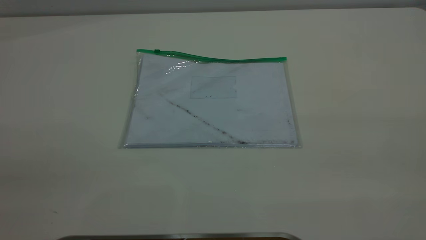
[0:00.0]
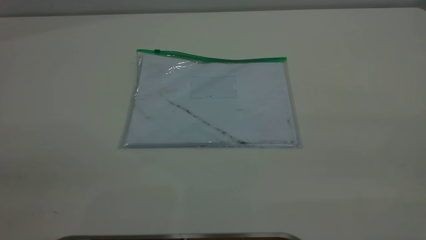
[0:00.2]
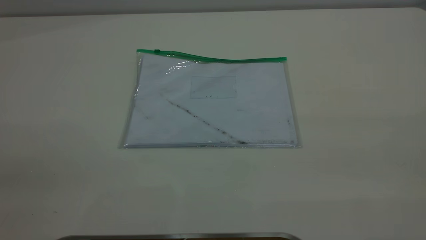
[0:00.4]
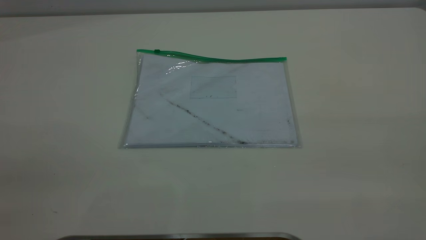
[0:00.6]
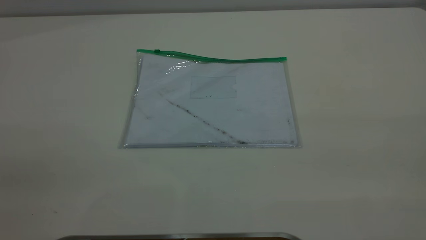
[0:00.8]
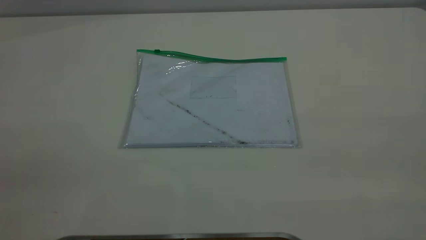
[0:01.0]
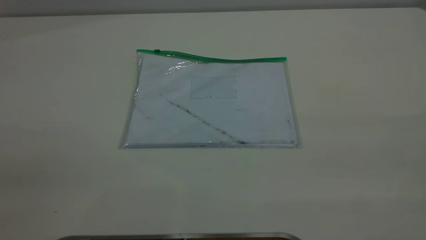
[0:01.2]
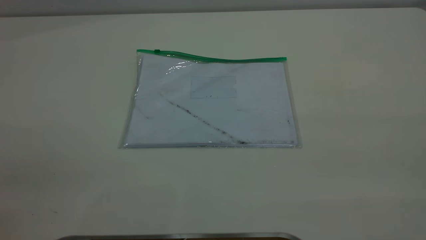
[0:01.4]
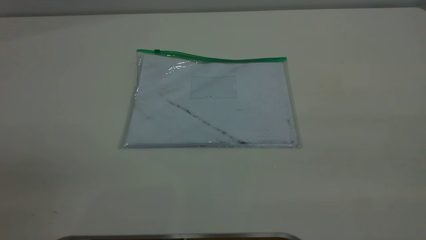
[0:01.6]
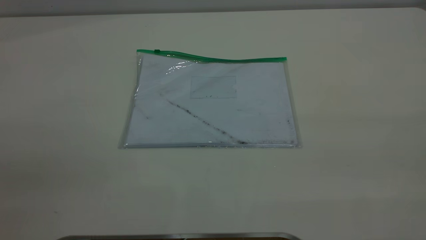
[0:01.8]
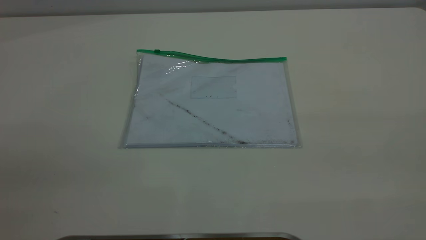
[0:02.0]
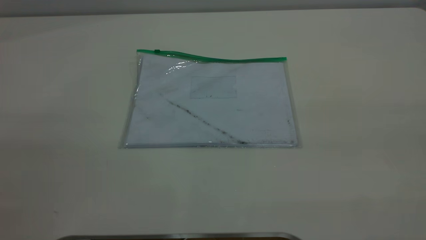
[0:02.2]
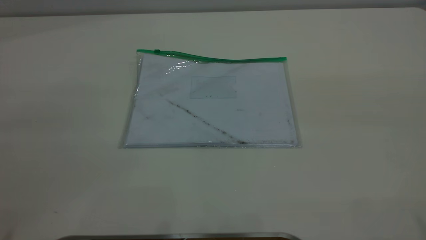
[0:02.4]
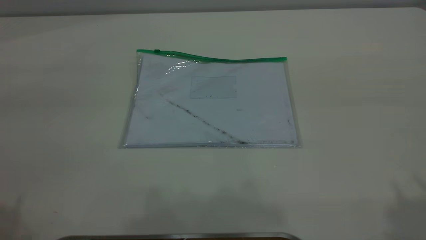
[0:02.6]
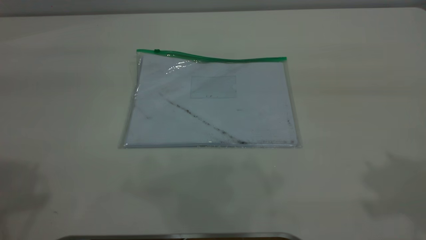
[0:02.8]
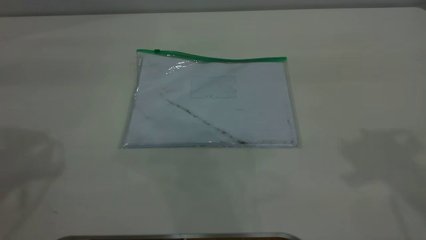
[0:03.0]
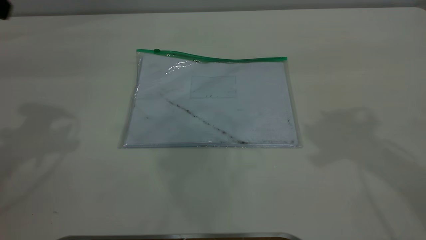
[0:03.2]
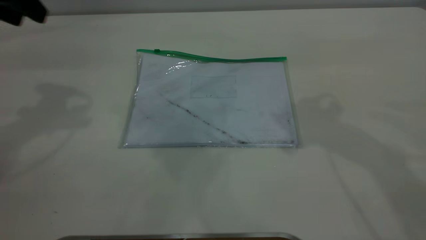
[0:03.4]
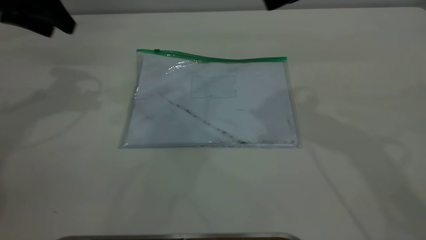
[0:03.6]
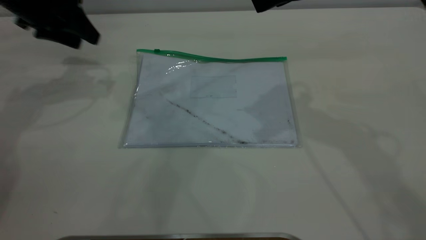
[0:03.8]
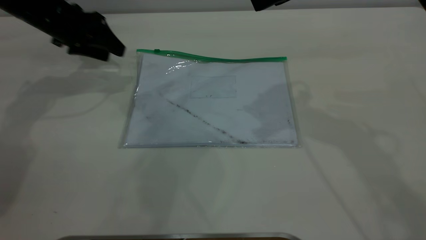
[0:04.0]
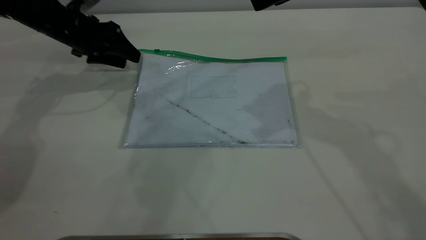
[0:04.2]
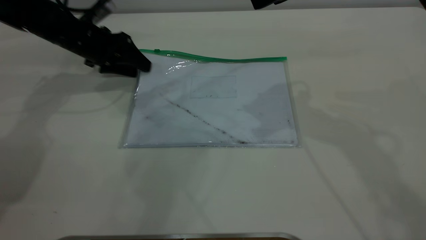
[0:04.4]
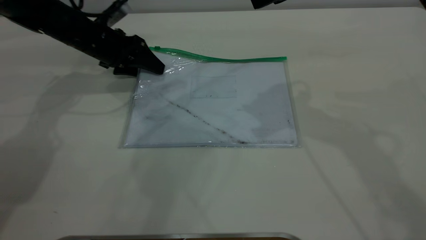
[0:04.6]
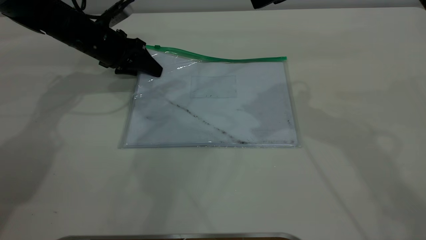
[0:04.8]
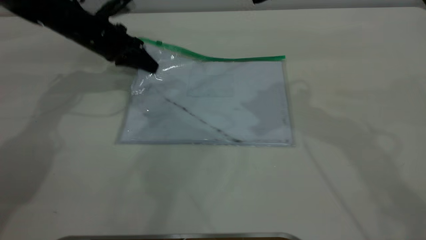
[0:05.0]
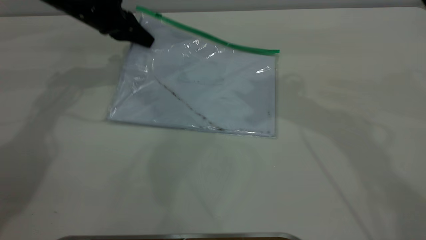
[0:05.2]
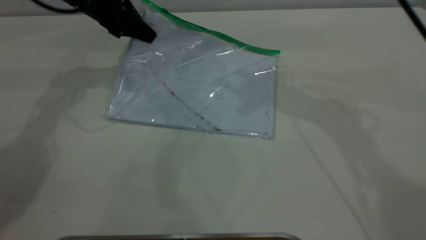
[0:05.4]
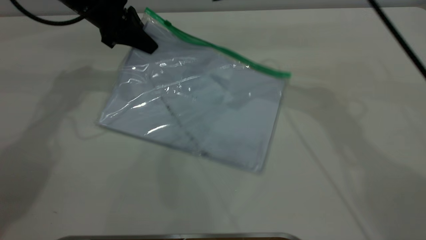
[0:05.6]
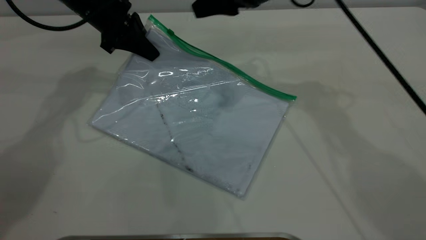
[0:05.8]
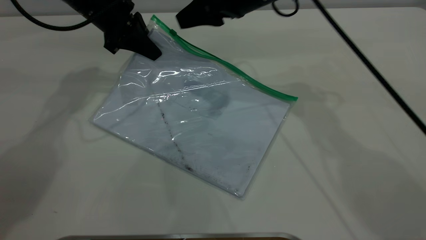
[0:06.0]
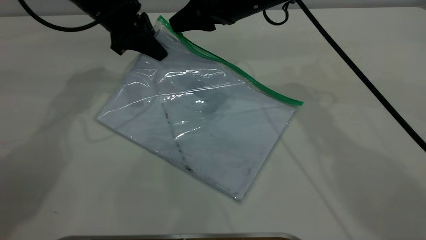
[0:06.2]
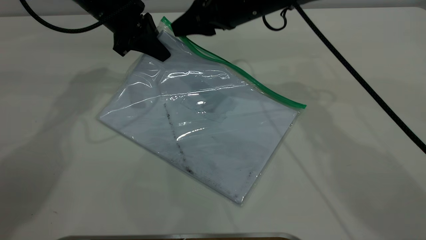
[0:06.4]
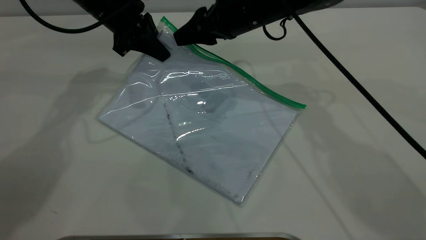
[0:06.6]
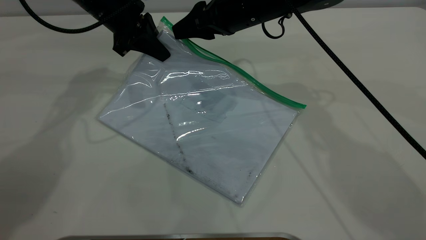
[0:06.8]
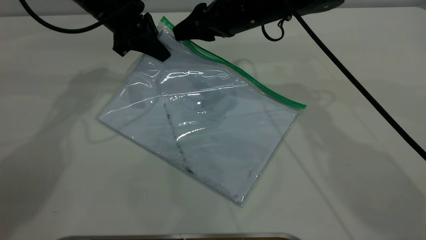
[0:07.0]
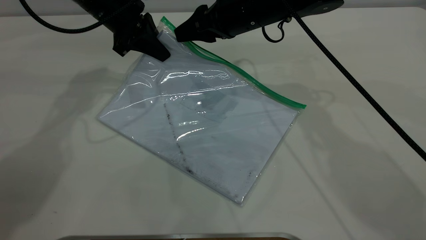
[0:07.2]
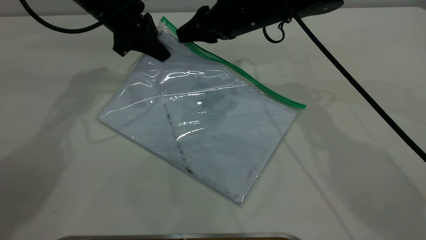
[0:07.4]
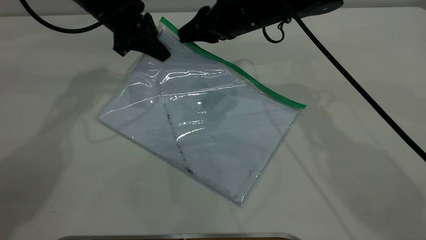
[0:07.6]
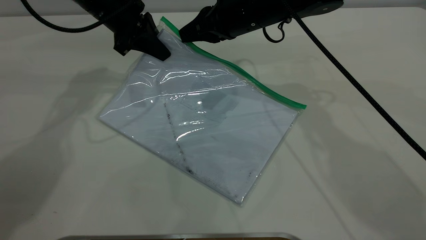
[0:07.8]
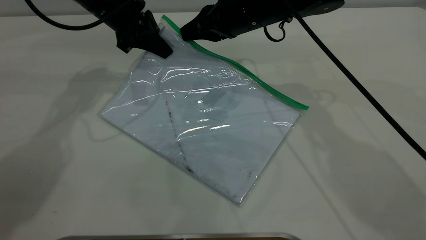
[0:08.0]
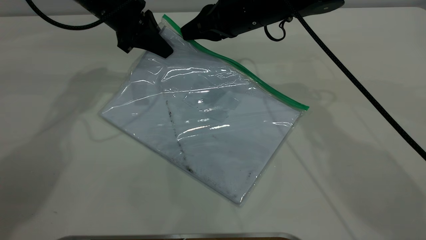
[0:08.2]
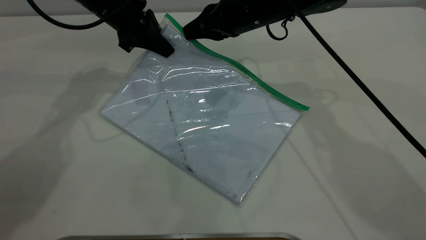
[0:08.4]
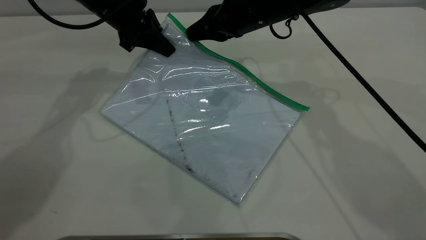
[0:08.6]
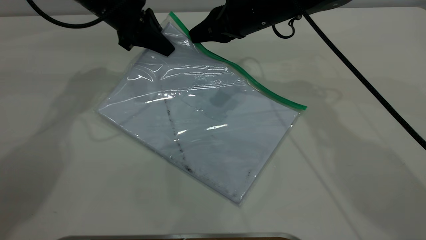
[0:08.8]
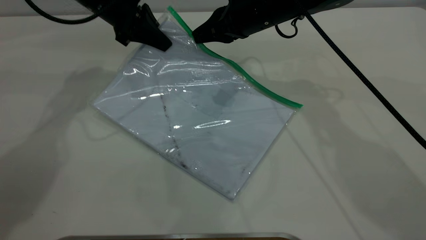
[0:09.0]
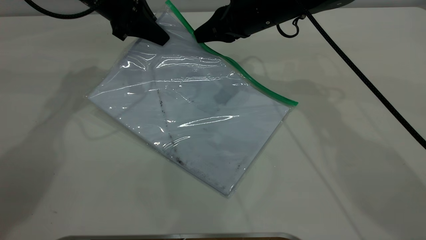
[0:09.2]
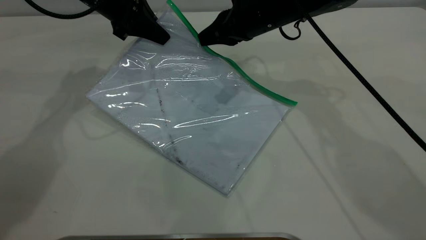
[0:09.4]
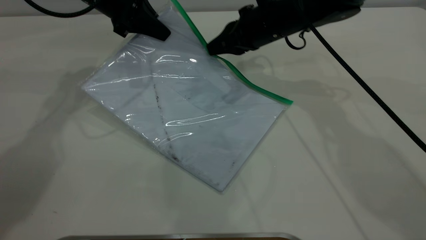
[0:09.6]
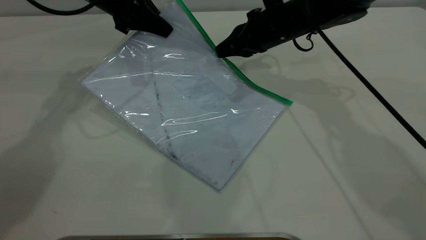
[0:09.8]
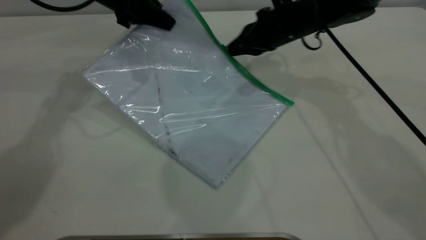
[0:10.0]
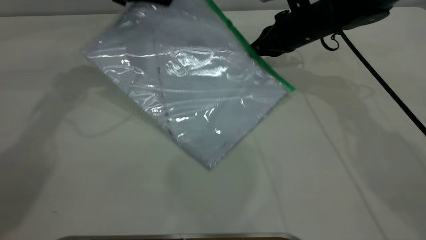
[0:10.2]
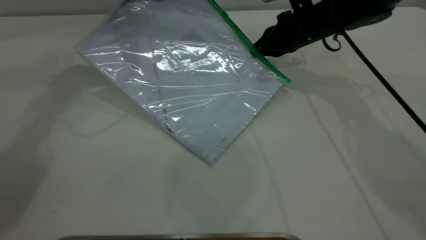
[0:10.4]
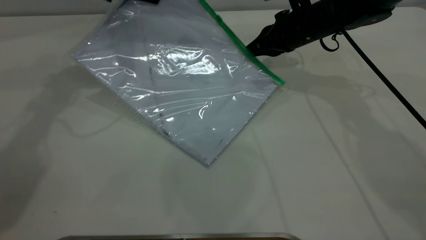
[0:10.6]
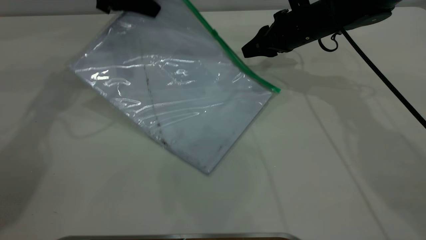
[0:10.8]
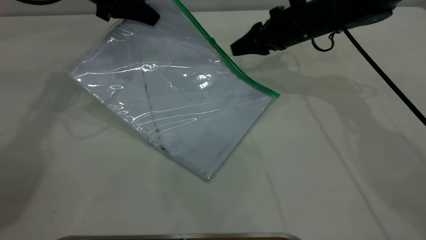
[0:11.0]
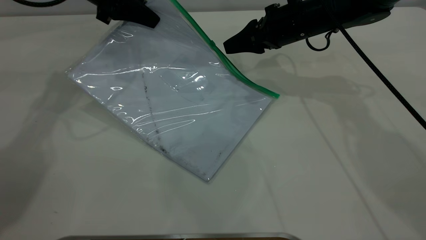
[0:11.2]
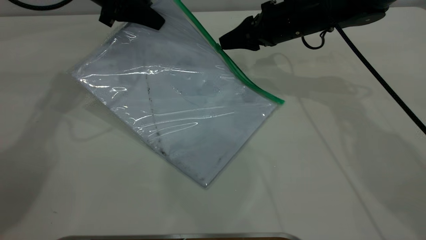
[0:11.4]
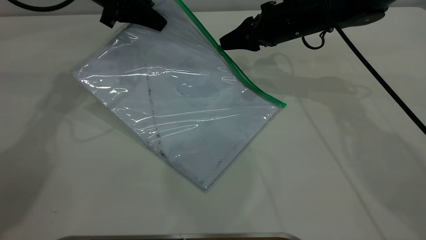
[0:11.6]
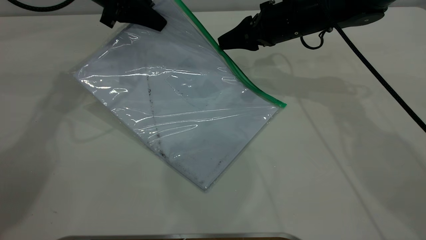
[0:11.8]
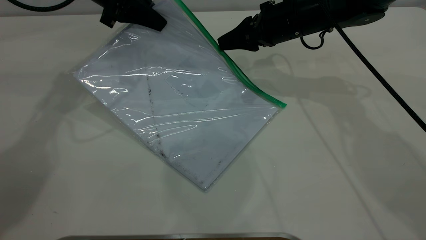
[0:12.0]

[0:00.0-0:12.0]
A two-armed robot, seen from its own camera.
Step, 0:00.0 to 0:05.4: Pick up the transparent plastic bag with the left gripper.
0:00.0 to 0:01.6: The two grippers keep their place.
0:03.0 to 0:04.4: The right gripper moves to the left, forward and downward, some 15 cm. Meanwhile the left gripper is displaced downward and forward by roughly 35 cm.
0:04.4 to 0:06.0: The left gripper shifts some 10 cm upward and to the right, and closes, while the right gripper is displaced downward, to the left and forward by roughly 15 cm.
0:06.0 to 0:07.6: The right gripper closes its fingers.
0:07.6 to 0:09.0: The grippers make only small movements.
0:09.0 to 0:10.4: The left gripper moves upward, about 5 cm; the right gripper goes some 10 cm to the right.
0:10.4 to 0:12.0: The right gripper opens.

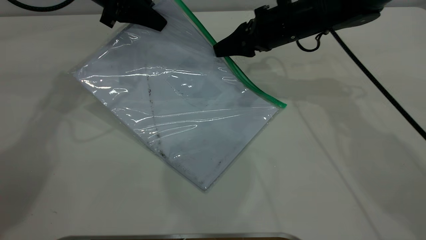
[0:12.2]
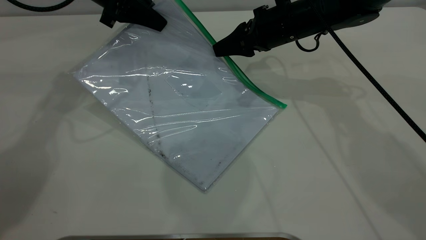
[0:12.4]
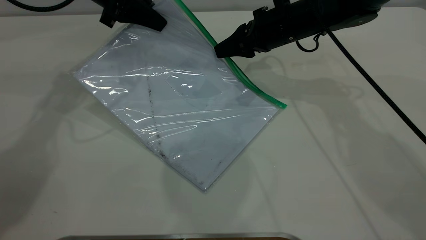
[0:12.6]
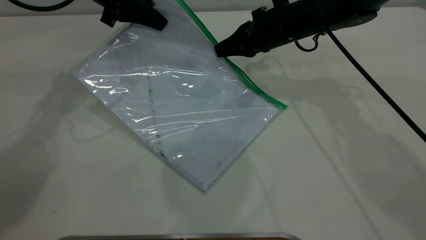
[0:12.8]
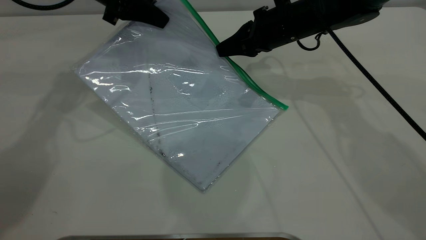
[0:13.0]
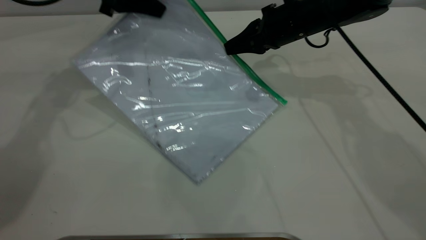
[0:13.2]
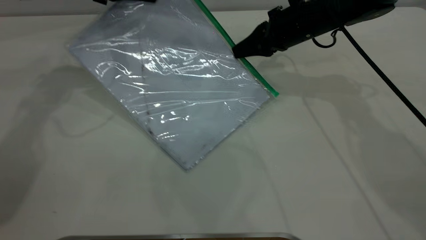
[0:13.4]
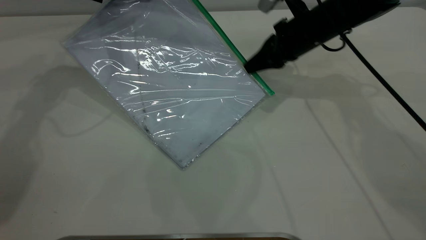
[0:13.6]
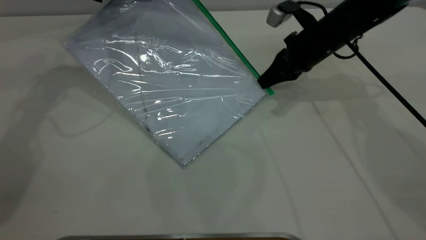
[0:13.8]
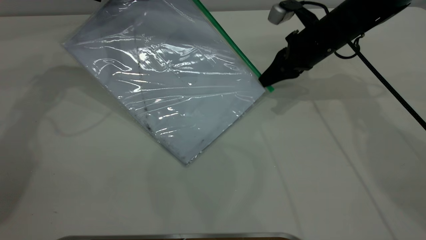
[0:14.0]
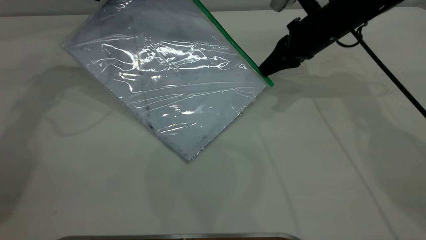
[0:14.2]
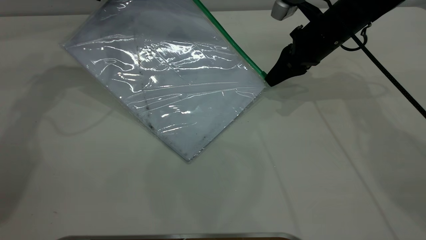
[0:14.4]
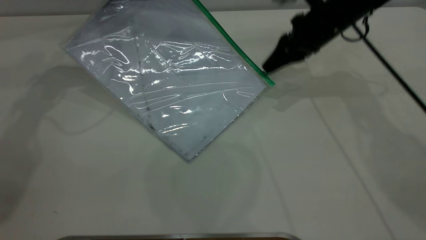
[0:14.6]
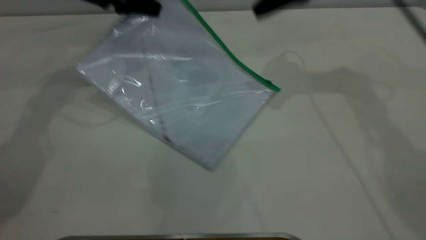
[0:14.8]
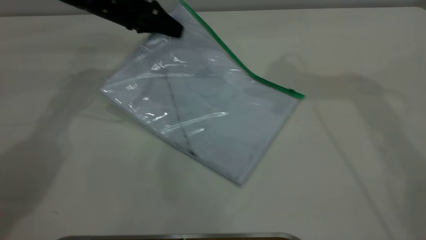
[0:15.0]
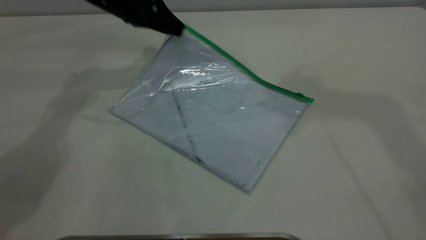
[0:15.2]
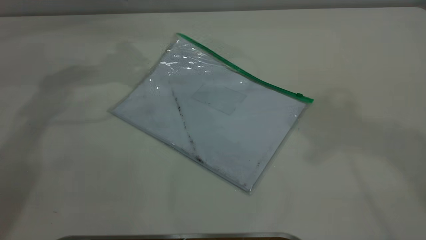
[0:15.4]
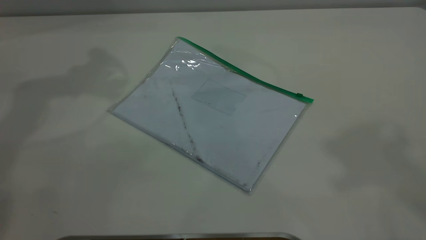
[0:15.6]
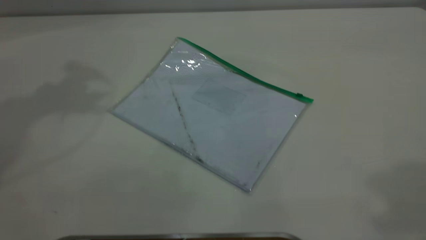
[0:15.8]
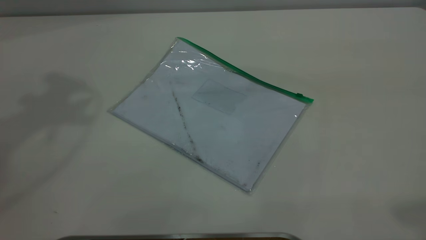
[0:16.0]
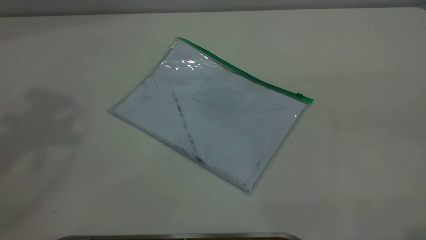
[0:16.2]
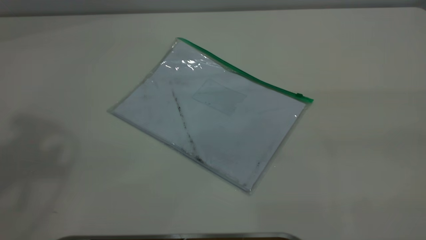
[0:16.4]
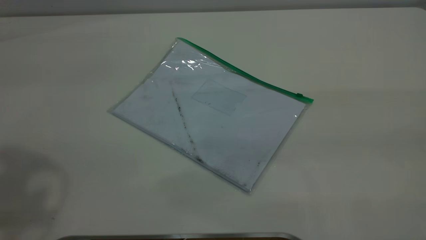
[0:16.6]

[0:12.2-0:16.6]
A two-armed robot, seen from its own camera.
Step, 0:12.2 to 0:14.6: Pulling up the zipper on the transparent plastic bag with the right gripper to close it.
Step, 0:14.8 to 0:15.2: Place the transparent plastic bag.
0:12.2 to 0:13.6: The right gripper closes.
0:13.6 to 0:15.2: The left gripper opens its fingers. Meanwhile the right gripper goes approximately 35 cm upward, and opens up.
0:15.2 to 0:16.6: The right gripper heads backward, covering some 30 cm. The left gripper heads backward and upward, covering approximately 40 cm.
